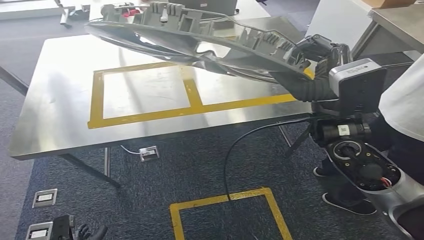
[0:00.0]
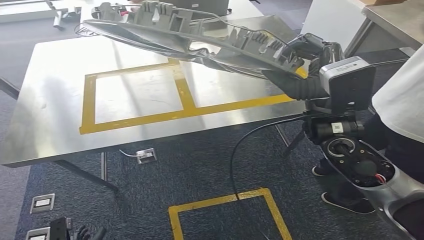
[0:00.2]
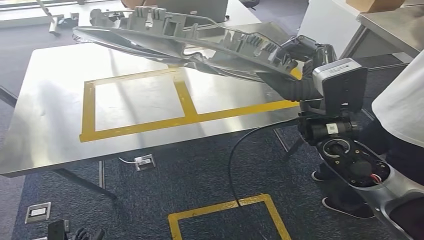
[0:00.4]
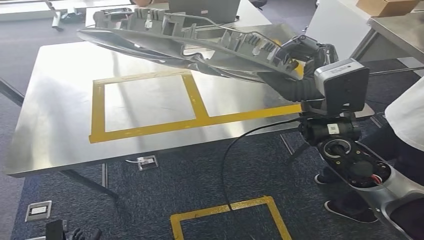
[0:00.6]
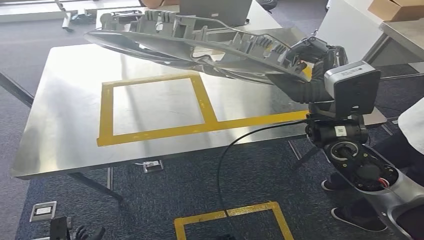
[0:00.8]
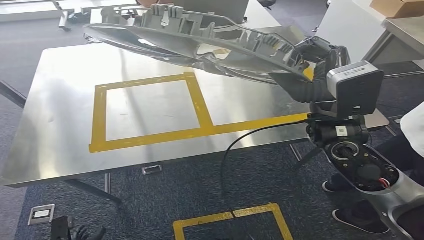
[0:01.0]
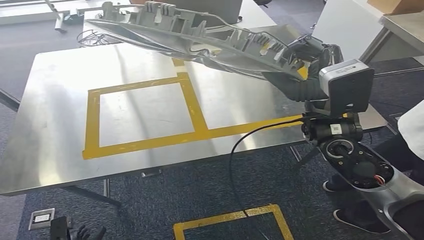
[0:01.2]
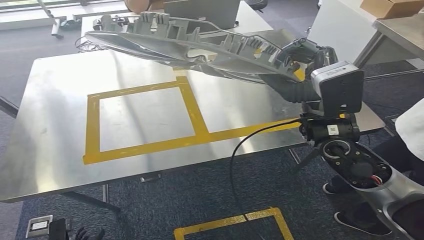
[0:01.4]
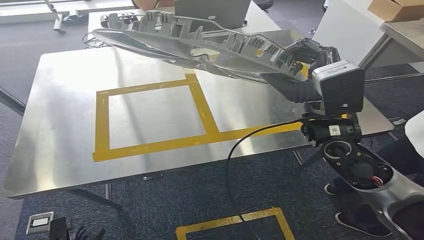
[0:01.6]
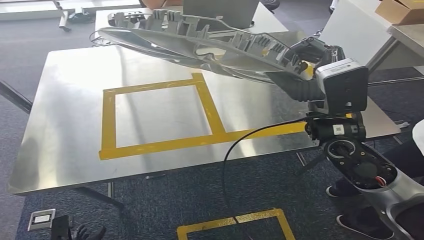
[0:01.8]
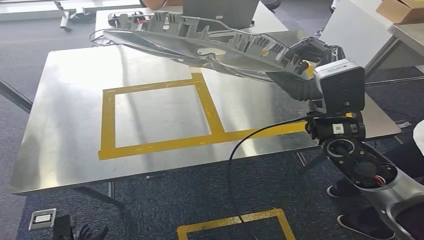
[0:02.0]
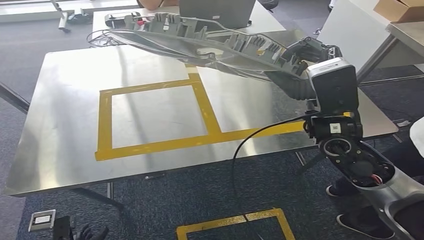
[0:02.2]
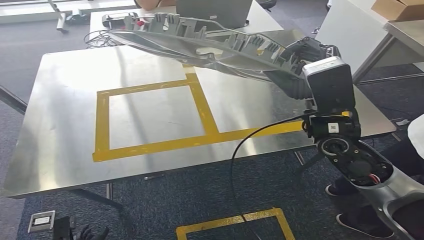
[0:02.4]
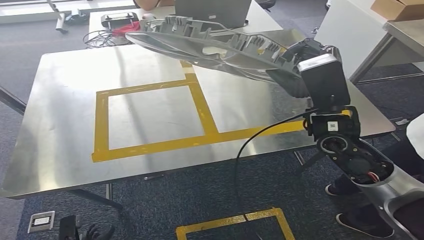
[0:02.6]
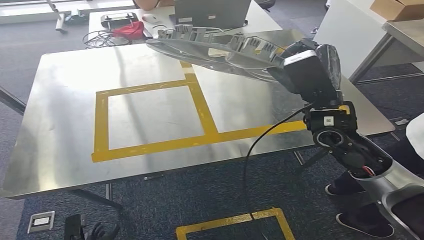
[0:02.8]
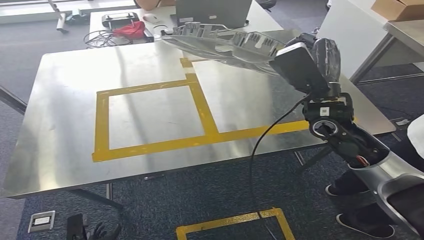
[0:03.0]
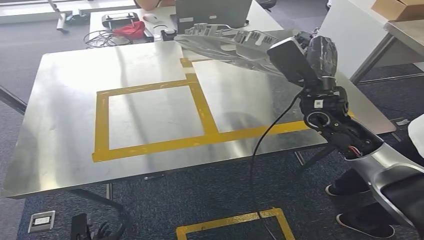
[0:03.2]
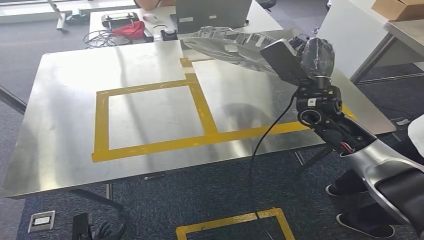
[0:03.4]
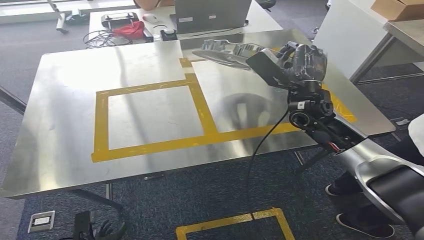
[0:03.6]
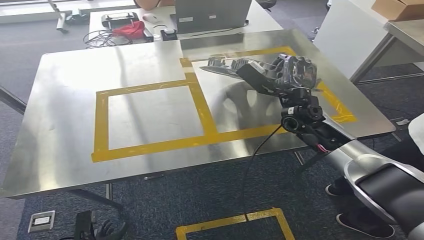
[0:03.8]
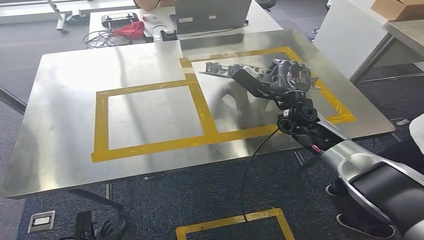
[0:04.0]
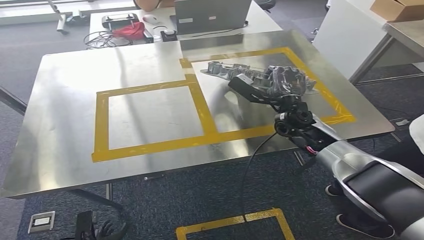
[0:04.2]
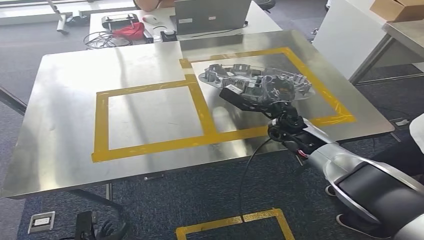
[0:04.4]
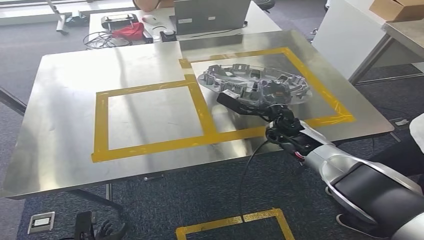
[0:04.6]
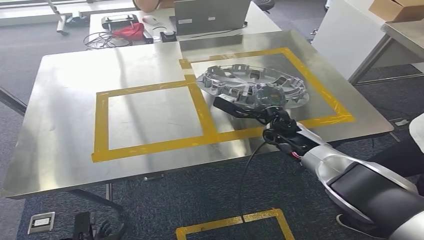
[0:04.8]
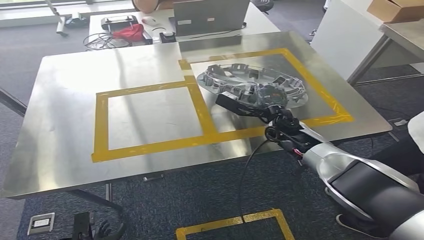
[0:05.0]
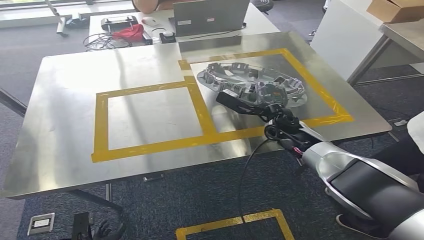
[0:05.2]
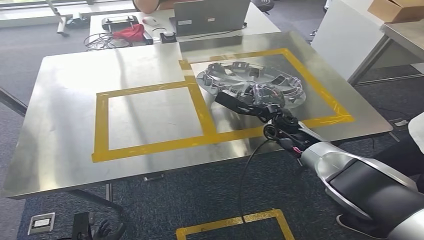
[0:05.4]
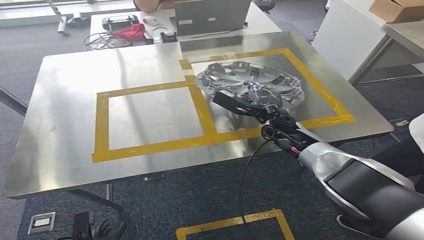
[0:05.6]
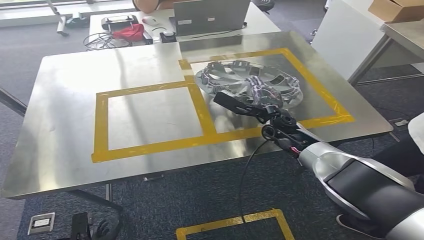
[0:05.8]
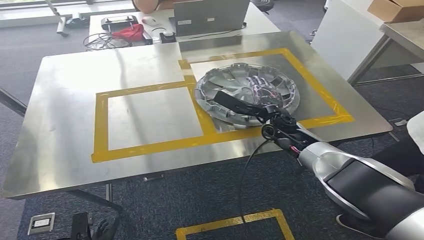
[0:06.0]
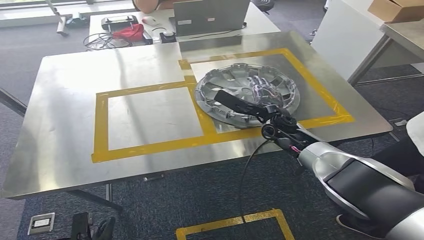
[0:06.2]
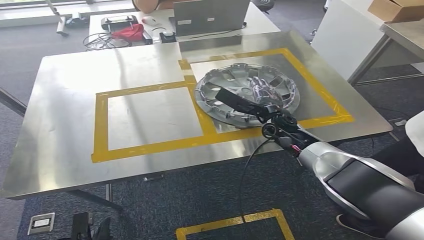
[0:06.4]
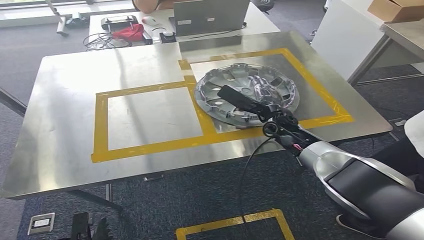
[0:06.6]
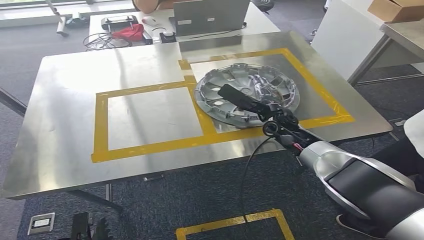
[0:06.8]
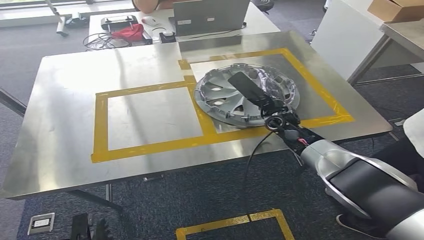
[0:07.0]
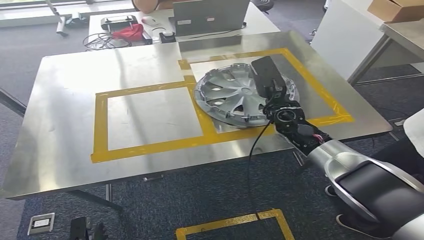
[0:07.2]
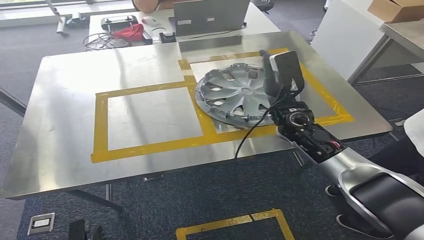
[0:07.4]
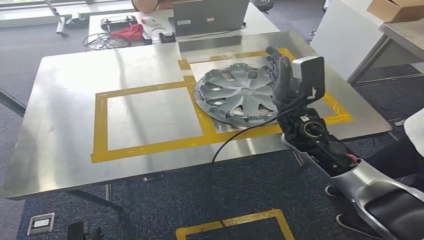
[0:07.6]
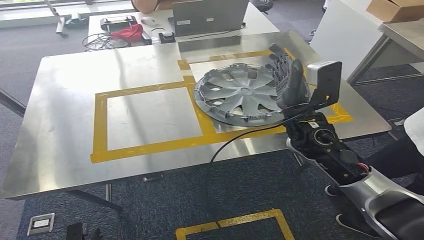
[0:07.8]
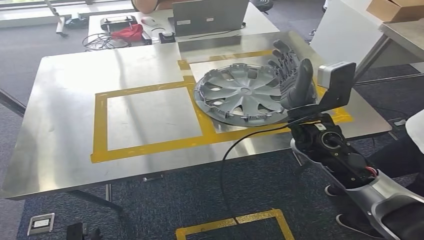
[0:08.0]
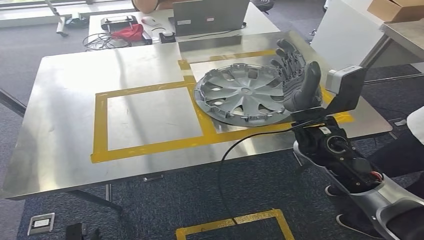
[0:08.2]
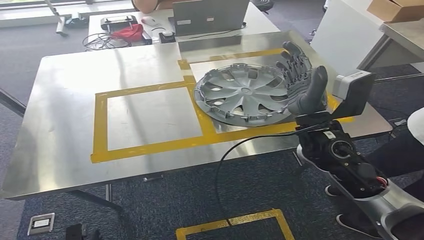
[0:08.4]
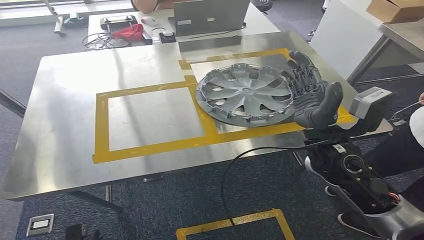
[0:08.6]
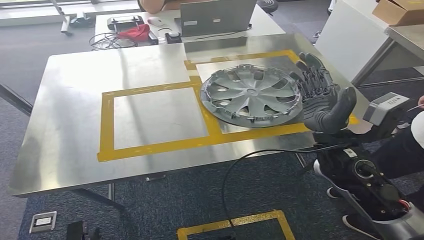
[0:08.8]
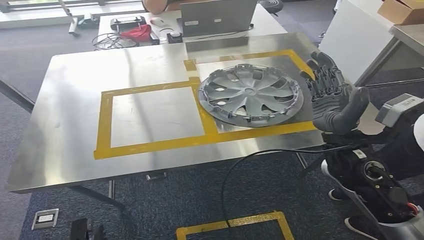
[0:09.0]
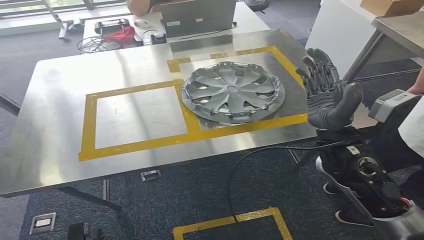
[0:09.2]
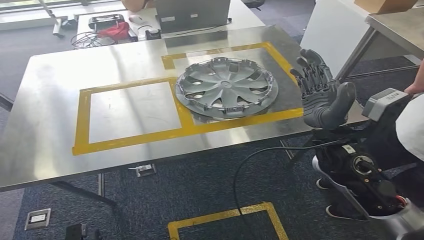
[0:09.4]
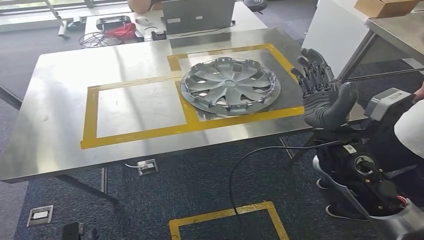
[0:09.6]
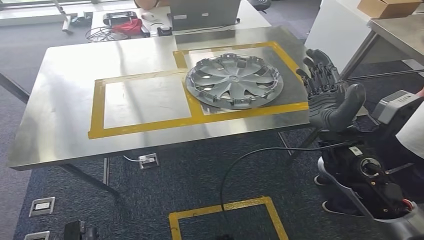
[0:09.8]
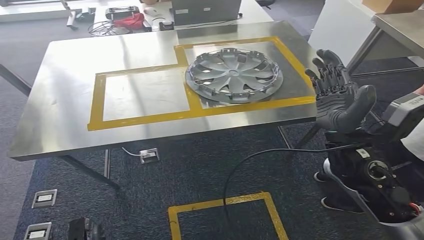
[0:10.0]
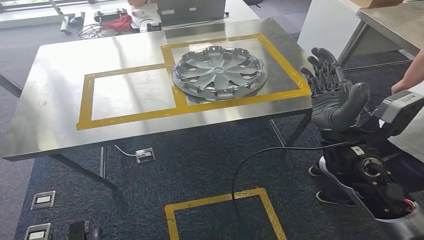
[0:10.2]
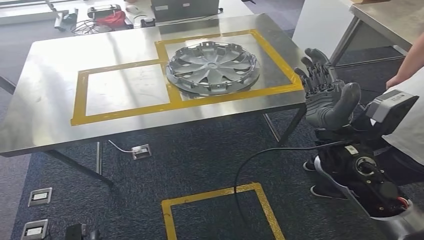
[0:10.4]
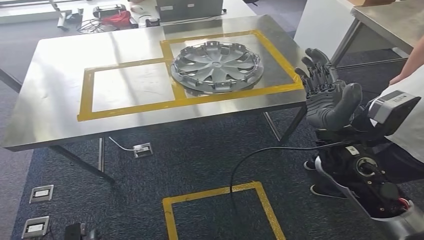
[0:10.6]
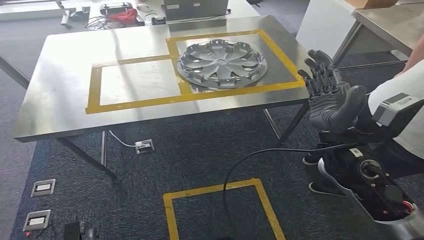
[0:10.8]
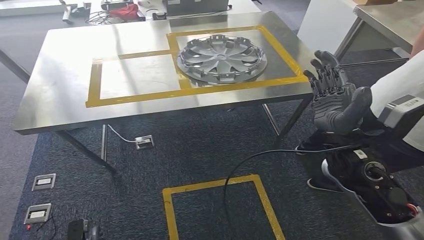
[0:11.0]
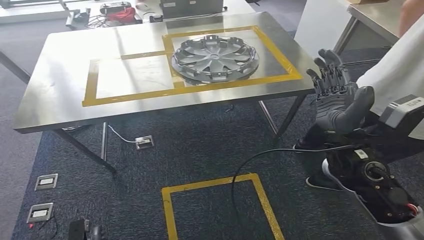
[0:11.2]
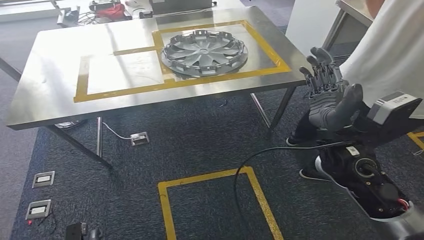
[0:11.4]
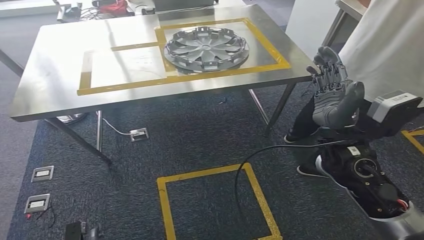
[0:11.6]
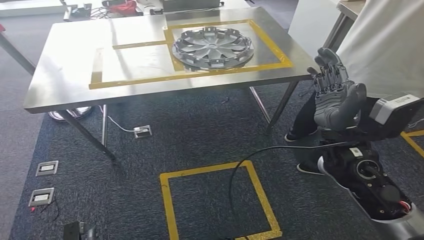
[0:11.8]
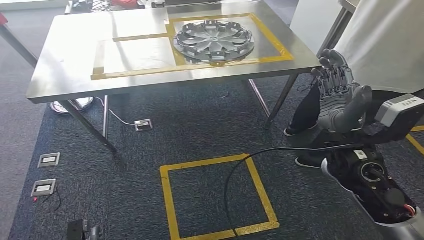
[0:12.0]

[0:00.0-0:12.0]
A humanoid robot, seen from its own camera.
Step, 0:00.6 to 0:07.0: Insert the small parts into the corresponding holes on the workbench.
0:01.6 to 0:03.0: The right hand travels forward by approximately 5 cm.
0:04.4 to 0:06.0: The hands move only a little.
0:06.0 to 0:07.6: The right hand goes about 10 cm upward and backward.

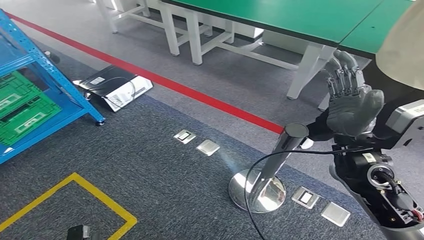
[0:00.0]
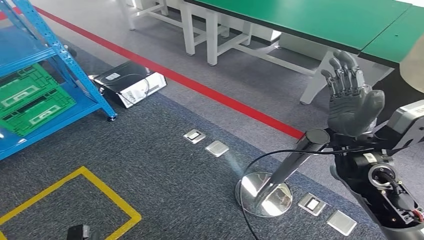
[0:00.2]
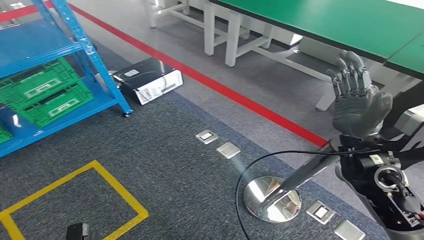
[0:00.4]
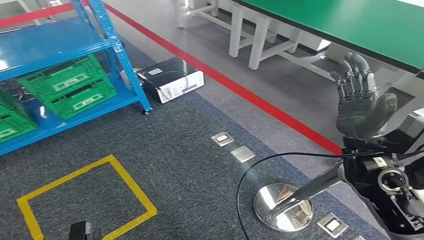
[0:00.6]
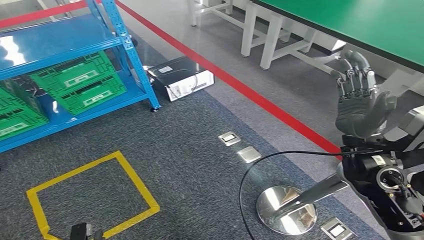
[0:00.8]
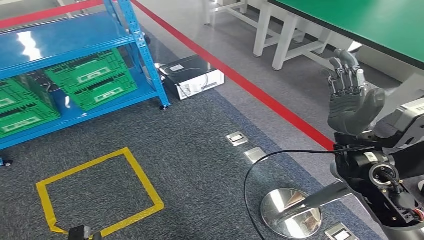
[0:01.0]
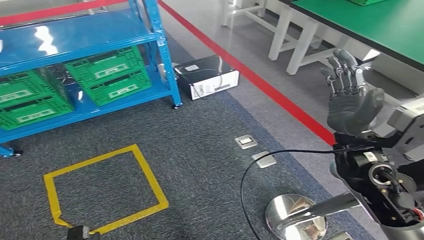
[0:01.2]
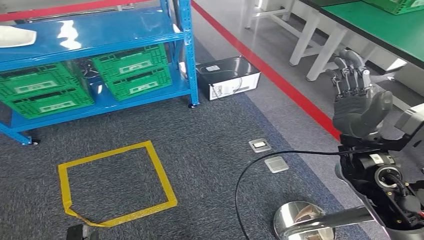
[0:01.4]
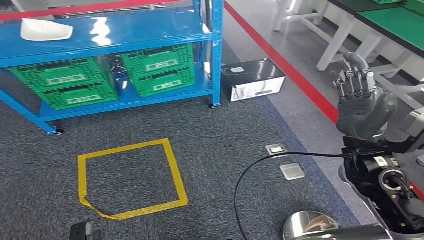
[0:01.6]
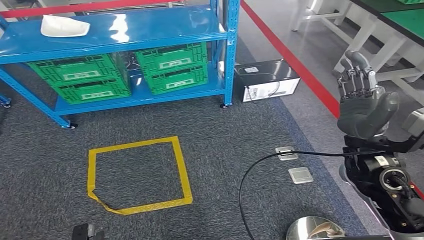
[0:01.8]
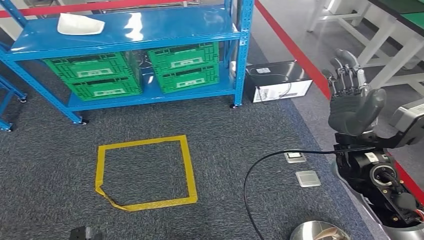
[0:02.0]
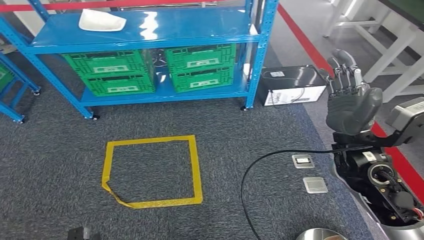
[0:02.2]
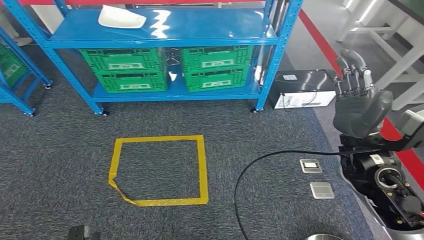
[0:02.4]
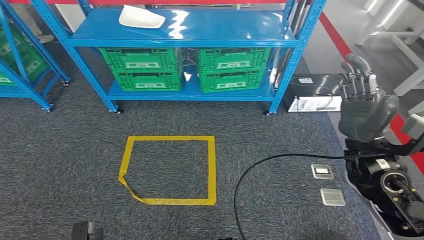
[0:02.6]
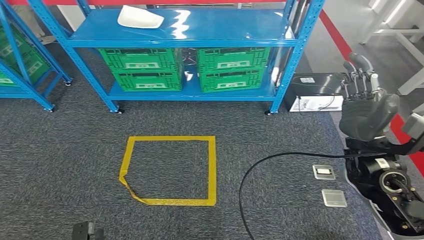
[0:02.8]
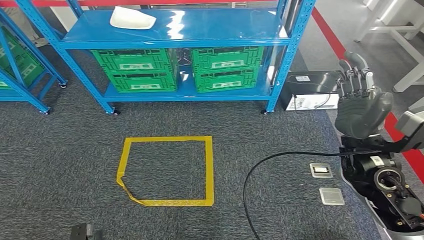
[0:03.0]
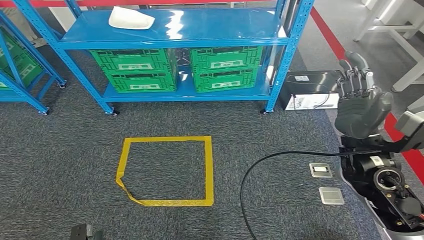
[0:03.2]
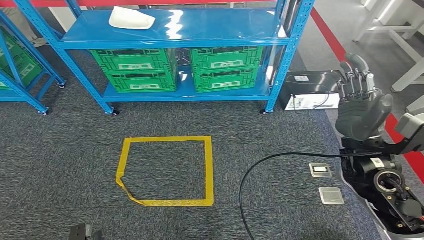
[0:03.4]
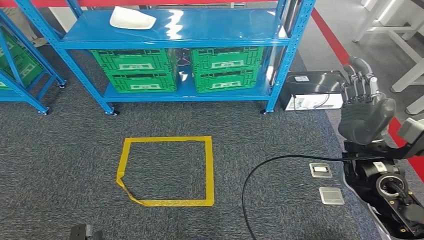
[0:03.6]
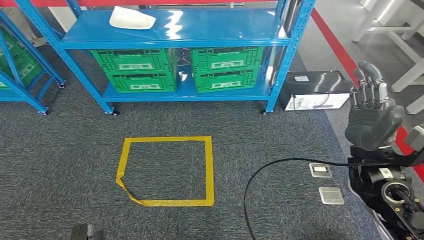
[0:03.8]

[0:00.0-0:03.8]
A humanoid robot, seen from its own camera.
Step, 0:00.0 to 0:03.8: Move to the initial position of the workbench.
